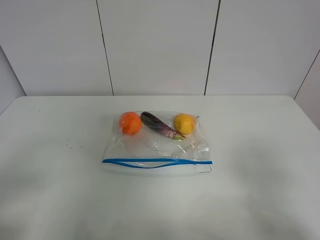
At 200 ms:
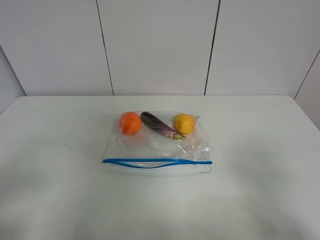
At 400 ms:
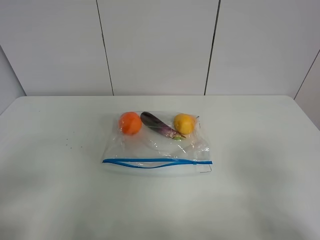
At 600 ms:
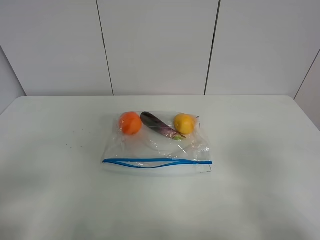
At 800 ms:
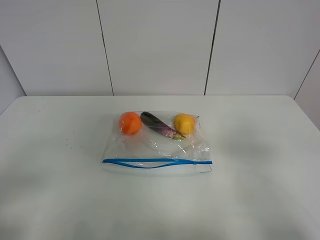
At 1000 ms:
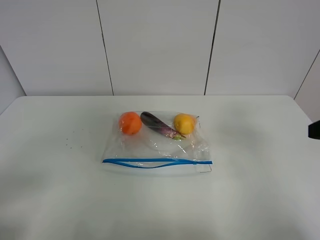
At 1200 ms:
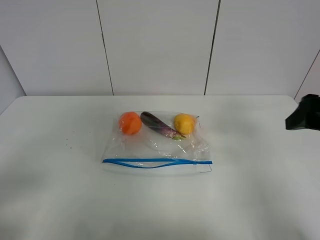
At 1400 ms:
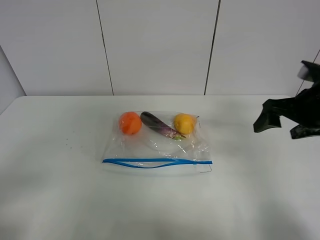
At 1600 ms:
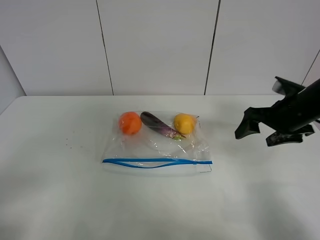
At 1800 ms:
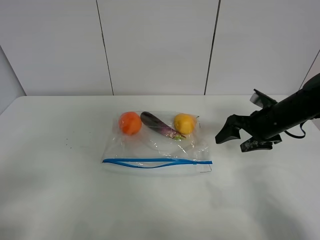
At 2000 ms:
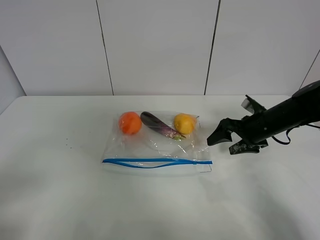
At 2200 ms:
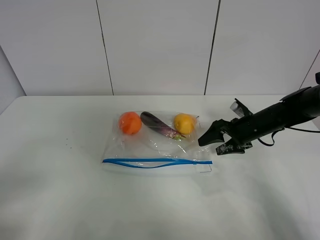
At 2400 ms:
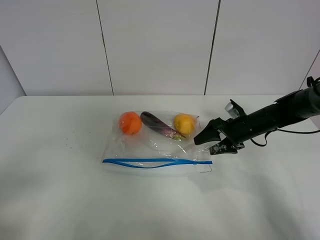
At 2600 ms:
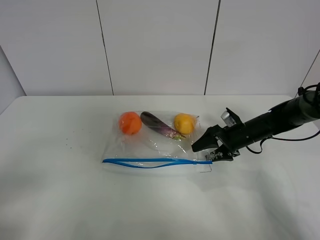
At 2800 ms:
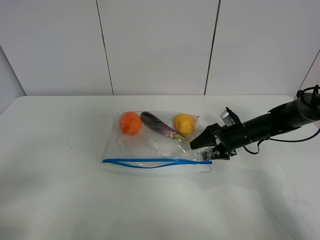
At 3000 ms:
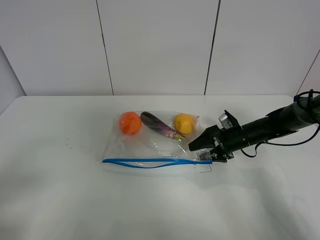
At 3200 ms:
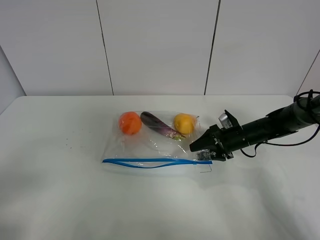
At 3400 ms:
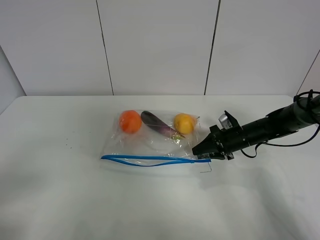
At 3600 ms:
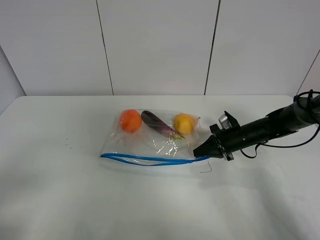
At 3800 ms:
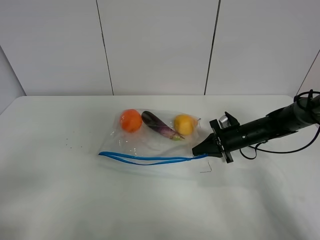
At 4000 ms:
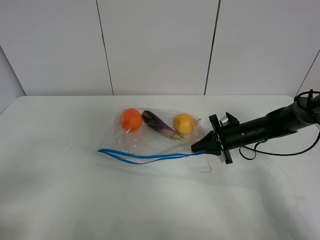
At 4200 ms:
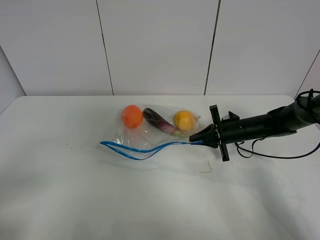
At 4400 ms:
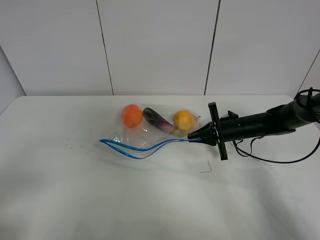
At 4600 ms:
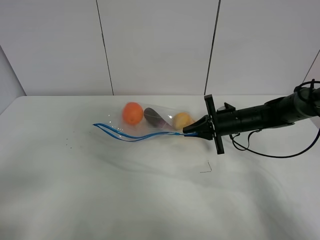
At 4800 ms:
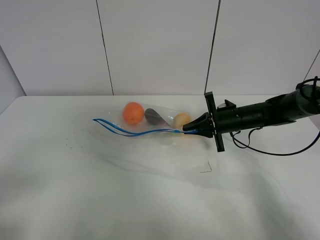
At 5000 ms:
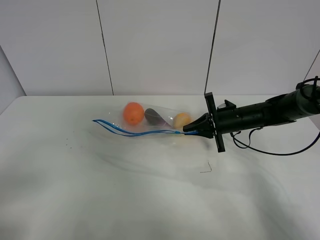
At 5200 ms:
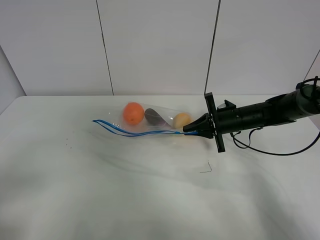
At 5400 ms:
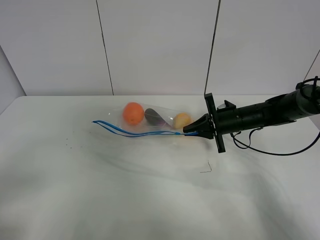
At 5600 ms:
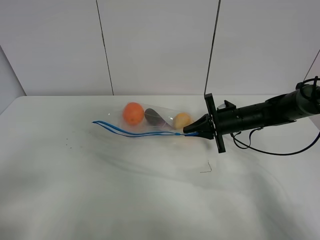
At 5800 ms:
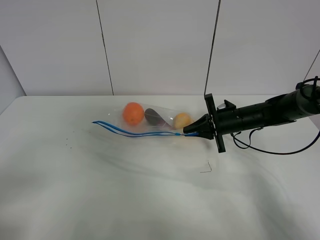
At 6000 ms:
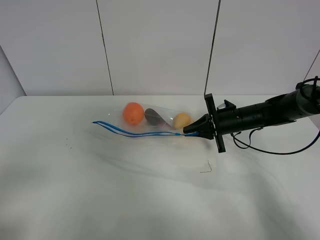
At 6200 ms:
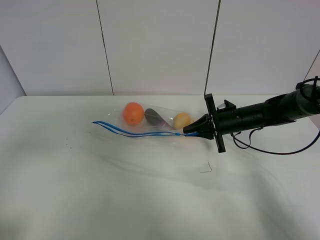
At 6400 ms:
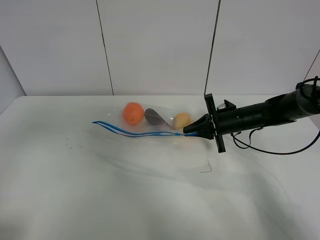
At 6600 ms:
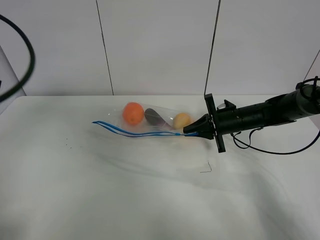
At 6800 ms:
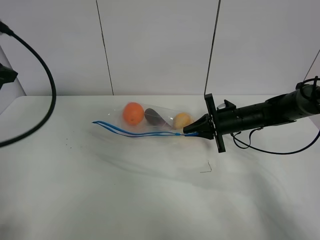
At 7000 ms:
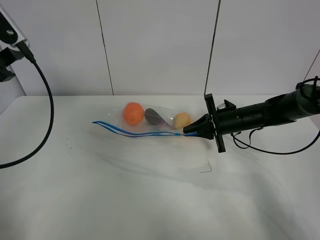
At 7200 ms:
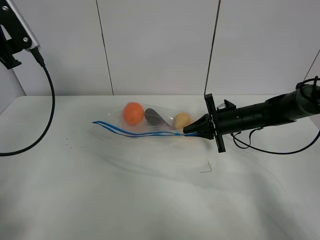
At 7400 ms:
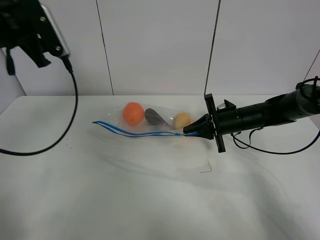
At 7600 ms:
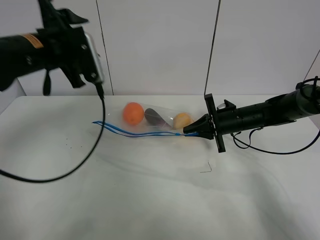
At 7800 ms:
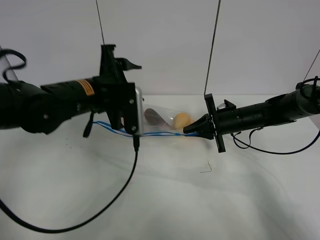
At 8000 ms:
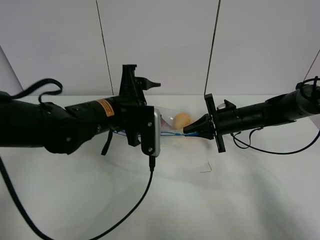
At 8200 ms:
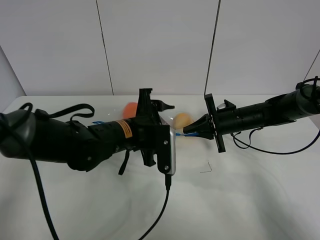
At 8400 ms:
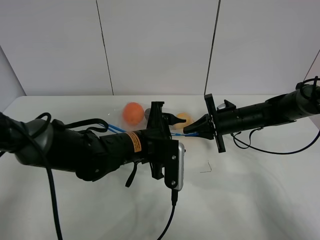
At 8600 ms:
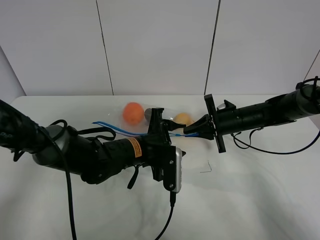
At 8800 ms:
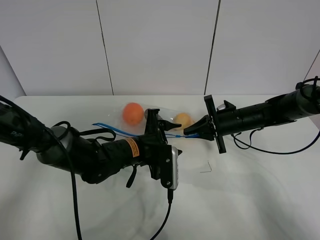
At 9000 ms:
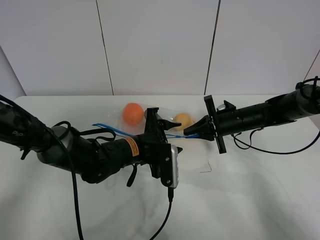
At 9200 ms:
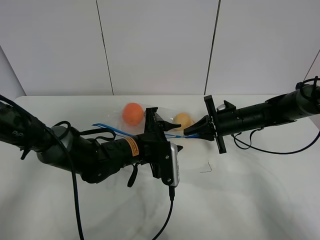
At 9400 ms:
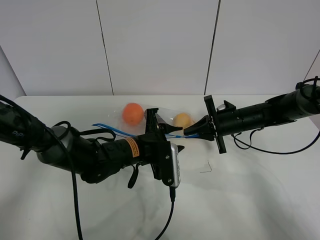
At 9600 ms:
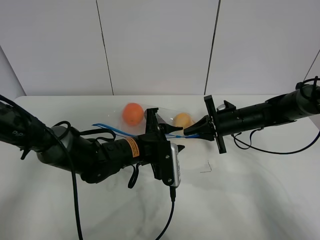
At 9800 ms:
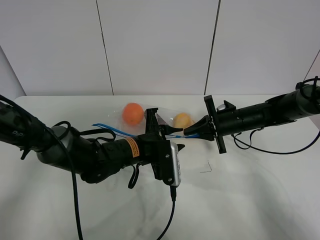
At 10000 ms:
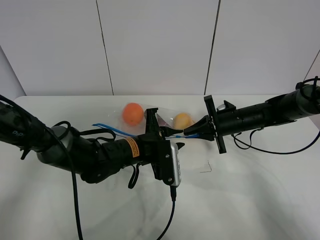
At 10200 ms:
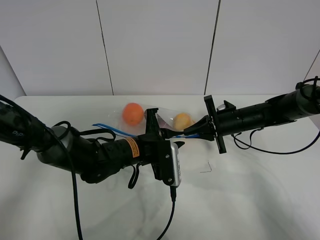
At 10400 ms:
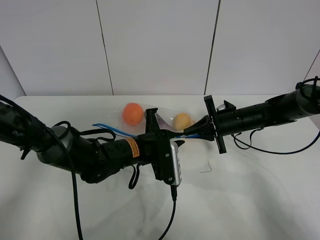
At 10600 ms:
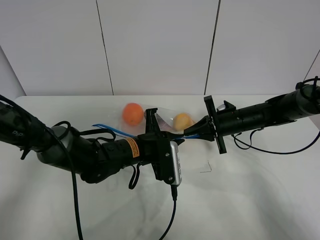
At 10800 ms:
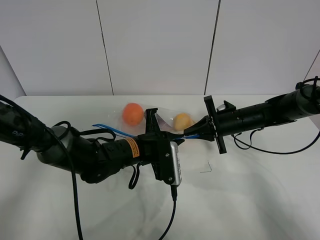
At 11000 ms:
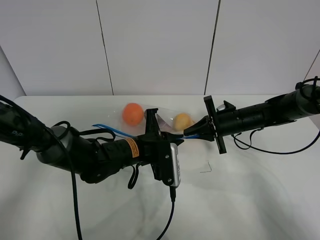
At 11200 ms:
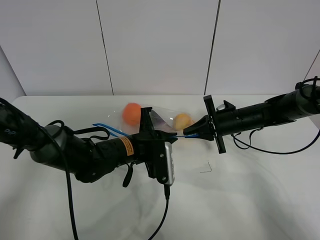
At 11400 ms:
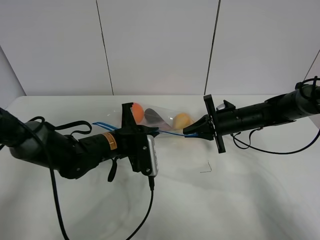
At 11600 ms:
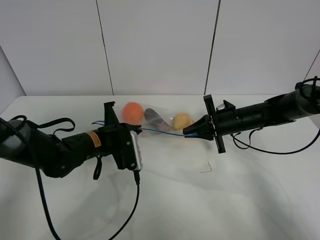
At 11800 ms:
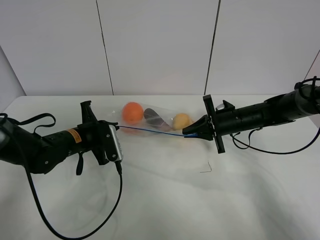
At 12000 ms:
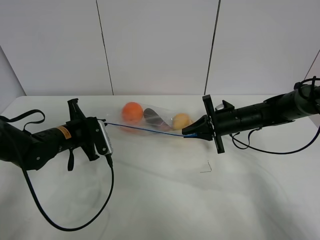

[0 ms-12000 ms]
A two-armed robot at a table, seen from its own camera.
Step, 0 ms to 3600 ms: Grasp the fruit bag with right gripper.
Step, 3800 ms to 5400 ms: Lift the fruit bag with your right gripper.
0 ms to 1600 ms: The right gripper moves forward, approximately 30 cm.
1600 ms to 3000 ms: The right gripper heads downward and forward, covering some 15 cm.
3000 ms to 4400 ms: The right gripper closes its fingers.
4400 ms to 6000 ms: There are only small adjustments of the grippers.
6000 ms to 7600 ms: The left gripper shifts approximately 35 cm forward and to the right.
7600 ms to 9000 ms: The left gripper travels downward and to the right by some 25 cm.
9000 ms to 10400 ms: The left gripper closes up.
10400 ms to 12000 ms: The left gripper heads to the left, covering some 15 cm.

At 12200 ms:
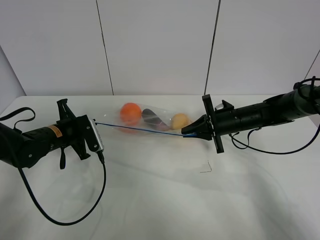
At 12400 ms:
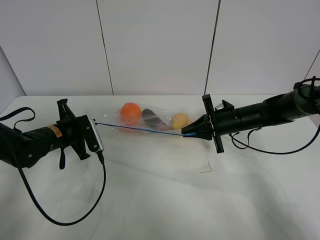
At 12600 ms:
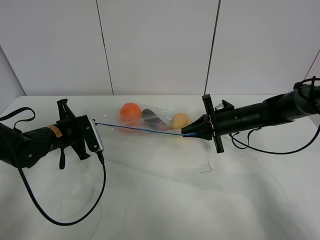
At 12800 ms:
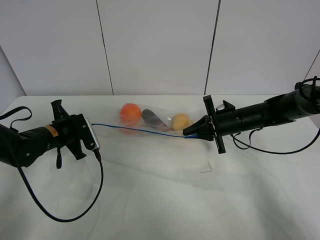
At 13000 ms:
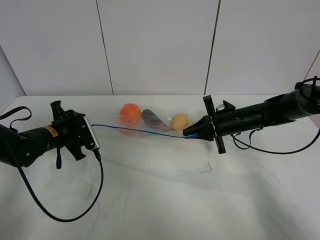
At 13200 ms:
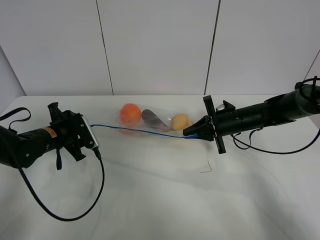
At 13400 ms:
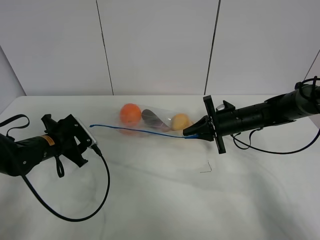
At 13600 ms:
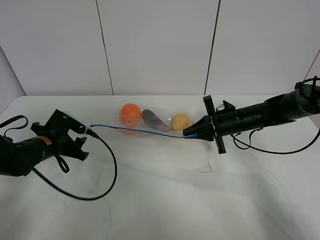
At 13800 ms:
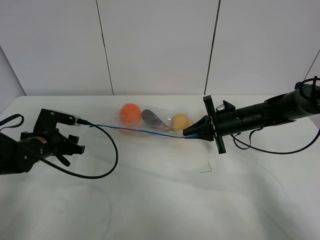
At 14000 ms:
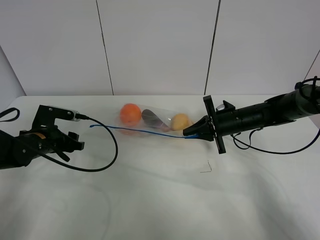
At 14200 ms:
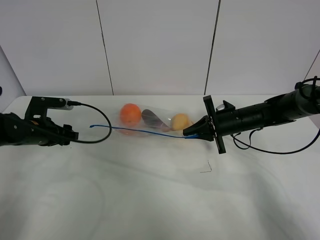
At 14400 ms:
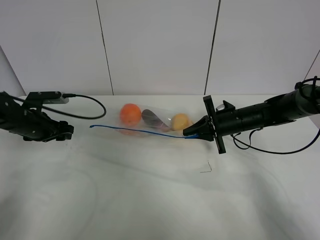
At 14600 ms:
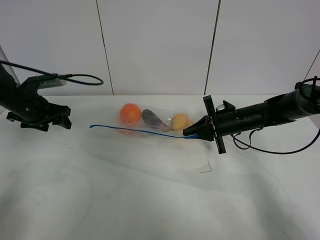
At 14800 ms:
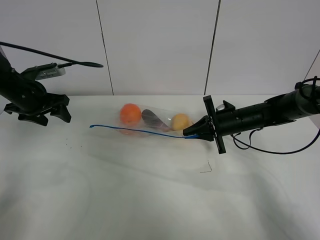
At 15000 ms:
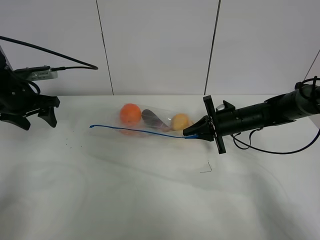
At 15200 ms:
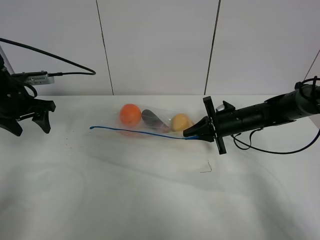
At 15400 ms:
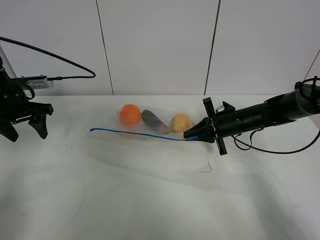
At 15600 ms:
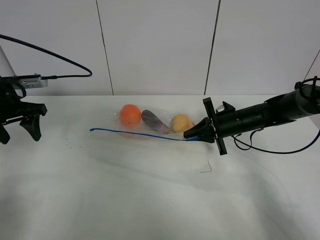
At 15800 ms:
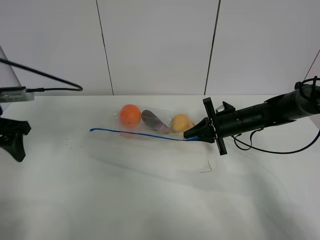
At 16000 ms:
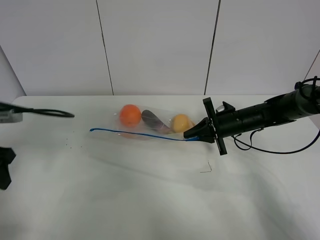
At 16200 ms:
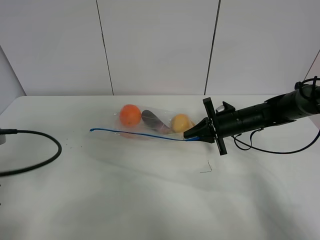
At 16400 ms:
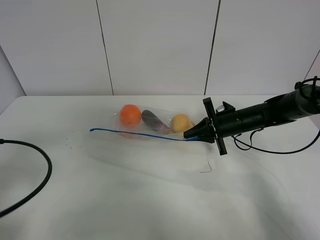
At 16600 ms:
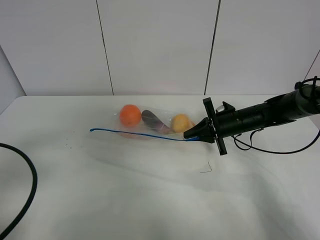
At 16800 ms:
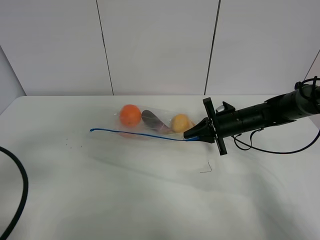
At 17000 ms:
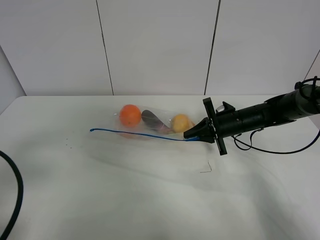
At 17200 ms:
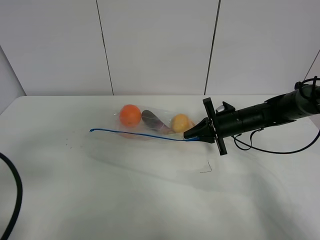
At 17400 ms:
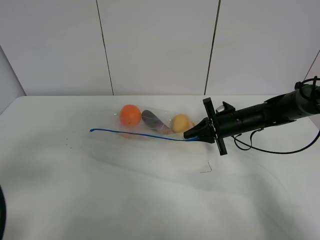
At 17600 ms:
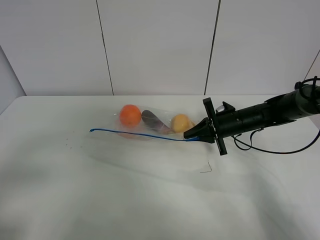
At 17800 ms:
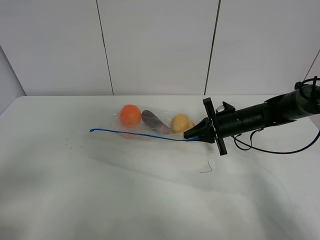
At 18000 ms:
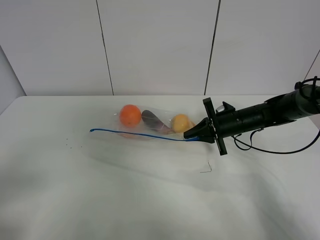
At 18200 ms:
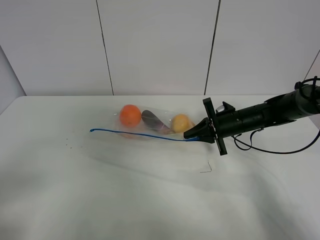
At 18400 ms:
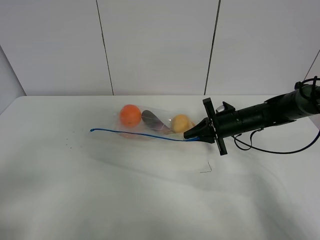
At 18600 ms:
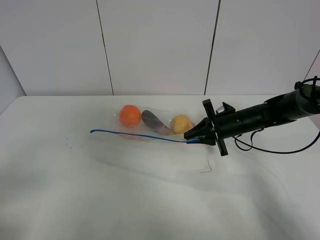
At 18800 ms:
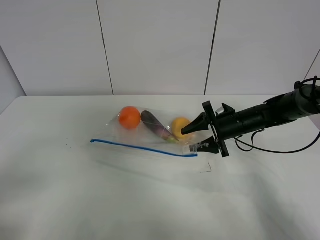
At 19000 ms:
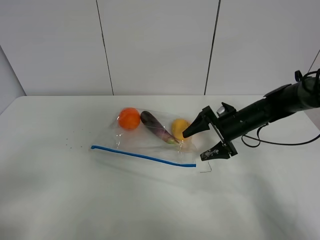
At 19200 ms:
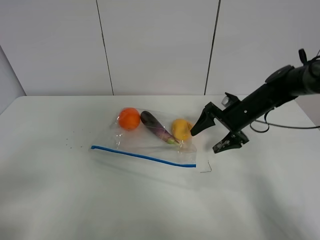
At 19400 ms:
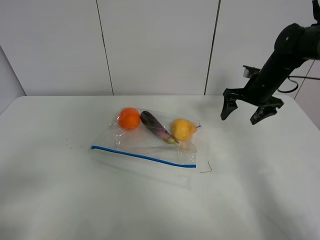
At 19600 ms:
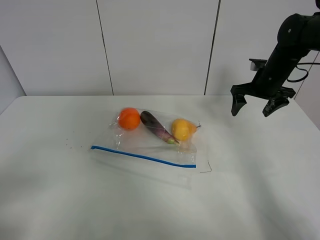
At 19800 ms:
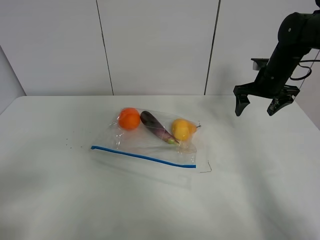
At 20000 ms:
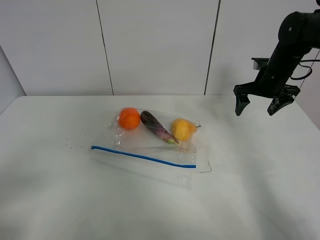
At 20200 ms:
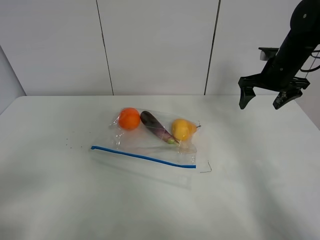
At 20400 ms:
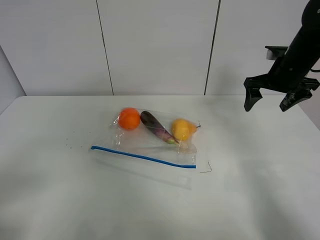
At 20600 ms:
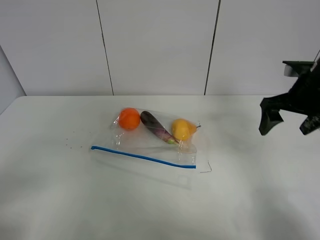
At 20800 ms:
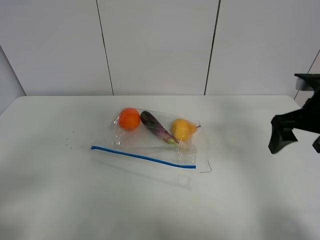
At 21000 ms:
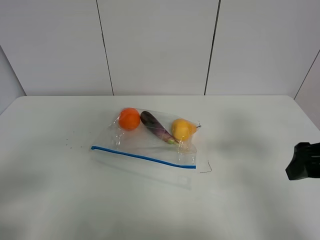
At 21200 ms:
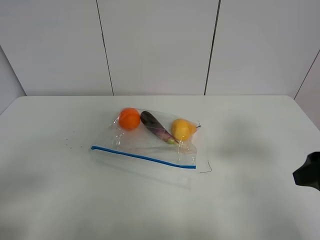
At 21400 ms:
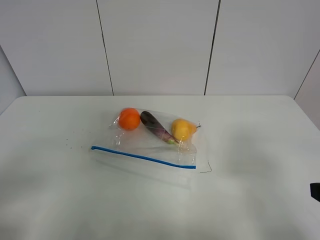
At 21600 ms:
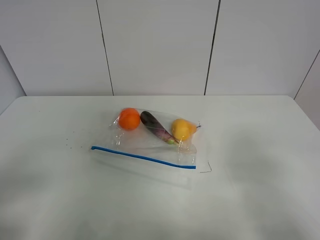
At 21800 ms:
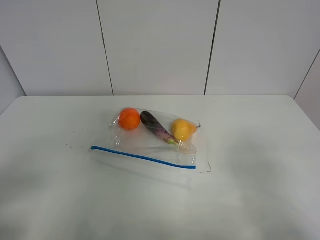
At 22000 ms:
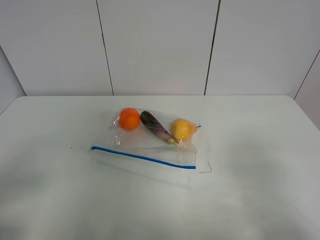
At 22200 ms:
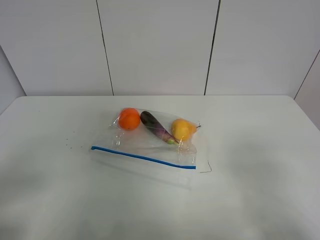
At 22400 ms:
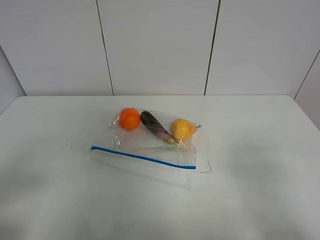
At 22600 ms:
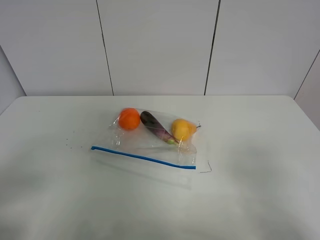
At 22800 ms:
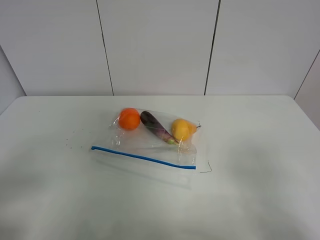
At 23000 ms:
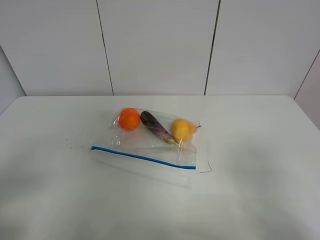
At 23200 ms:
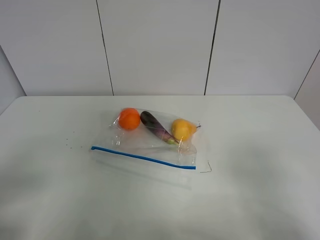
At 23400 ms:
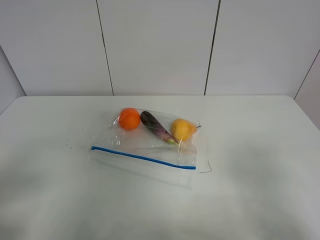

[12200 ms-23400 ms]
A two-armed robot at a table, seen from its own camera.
12200 ms to 13800 ms: The left gripper opens.
13800 ms to 15400 ms: The left gripper heads upward, covering approximately 15 cm.
15400 ms to 17000 ms: The left gripper heads backward, covering roughly 30 cm.
17000 ms to 18600 ms: The left gripper shifts roughly 5 cm backward.
18600 ms to 20200 ms: The right gripper moves upward and to the right, some 15 cm, and opens up.
20200 ms to 21800 ms: The right gripper shifts roughly 35 cm backward.
